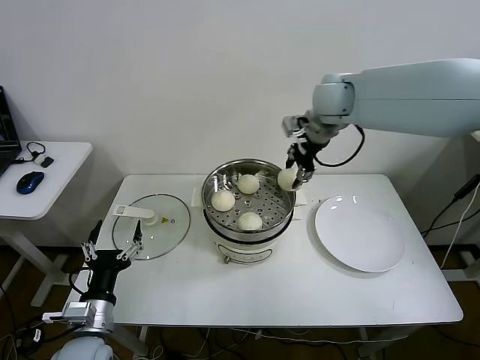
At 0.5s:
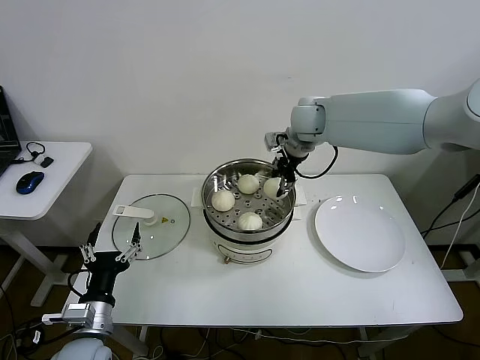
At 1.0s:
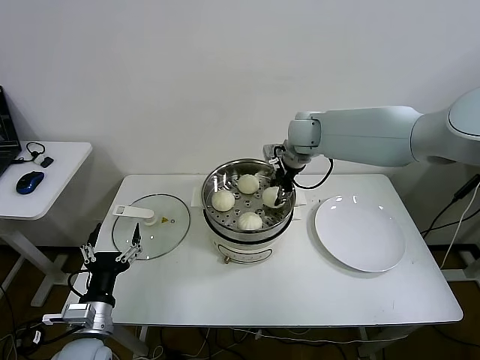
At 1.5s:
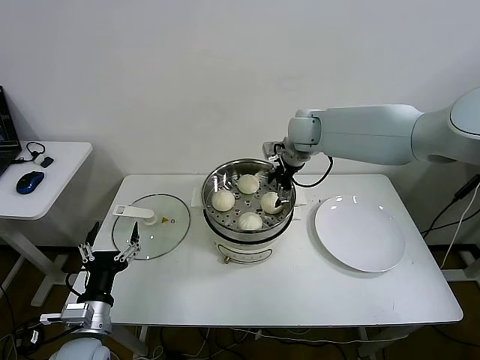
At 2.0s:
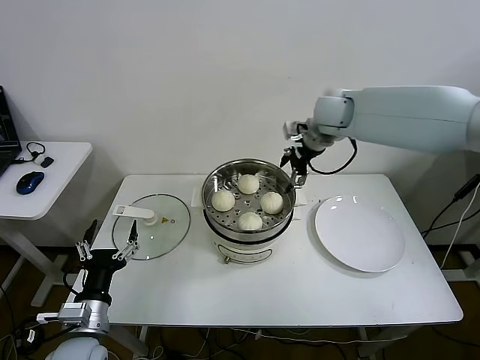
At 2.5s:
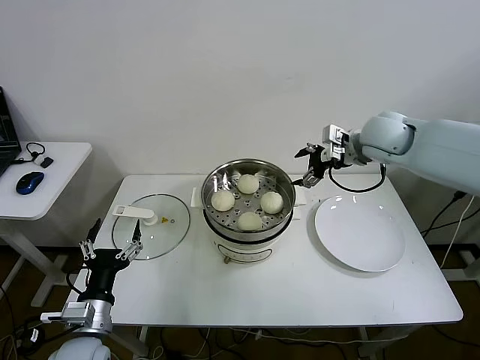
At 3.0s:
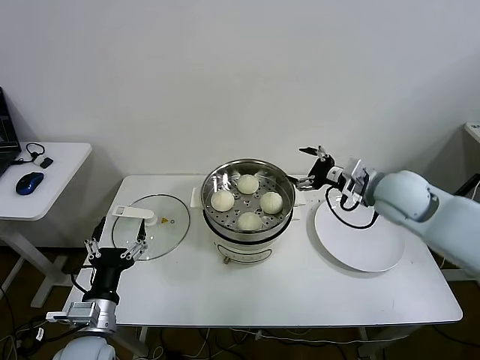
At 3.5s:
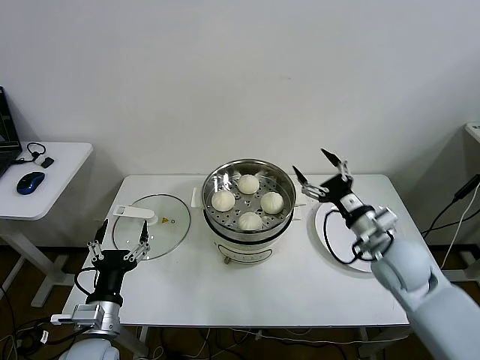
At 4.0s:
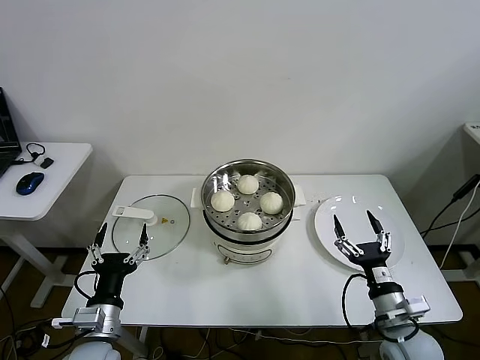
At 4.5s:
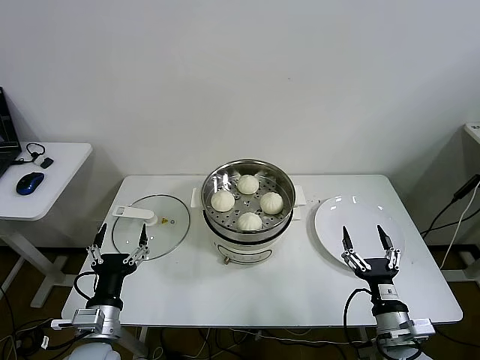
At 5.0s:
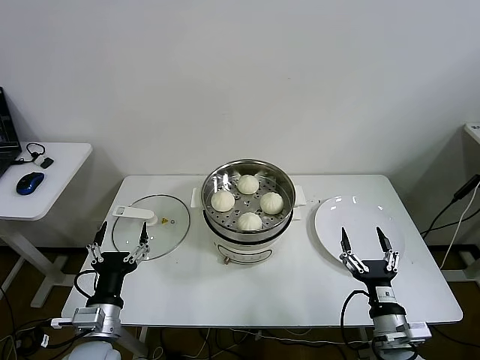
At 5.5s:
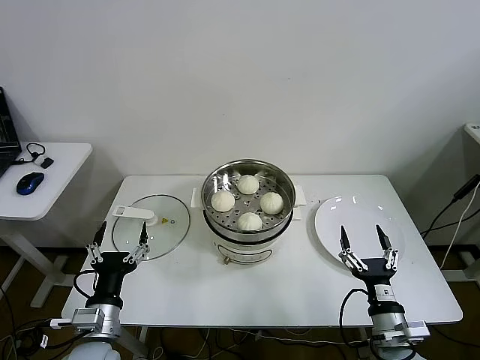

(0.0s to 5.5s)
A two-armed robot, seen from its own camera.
0.0s - 2.0s: The right gripper opens.
2.0s - 3.5s: The right gripper is displaced backward and downward by some 30 cm.
3.5s - 5.5s: The right gripper is displaced backward and downward by some 20 cm.

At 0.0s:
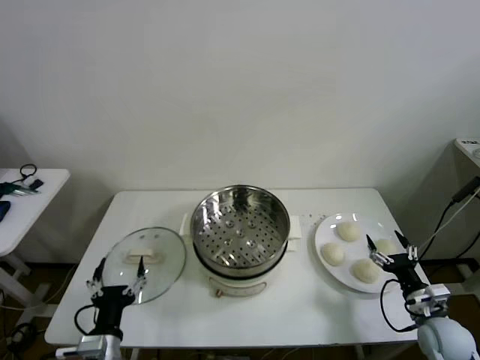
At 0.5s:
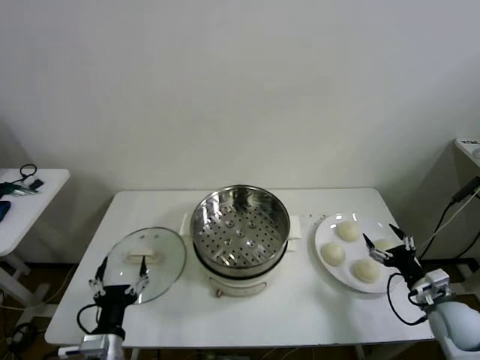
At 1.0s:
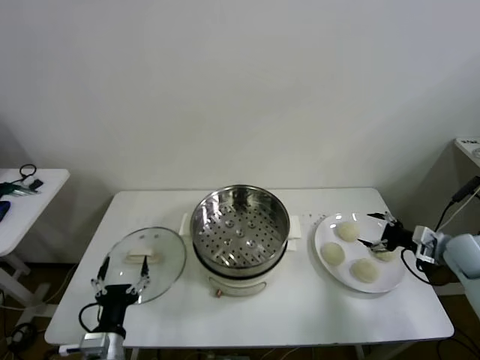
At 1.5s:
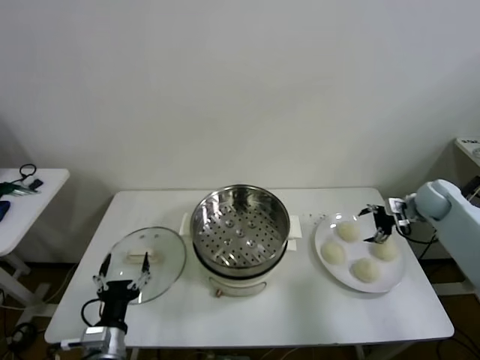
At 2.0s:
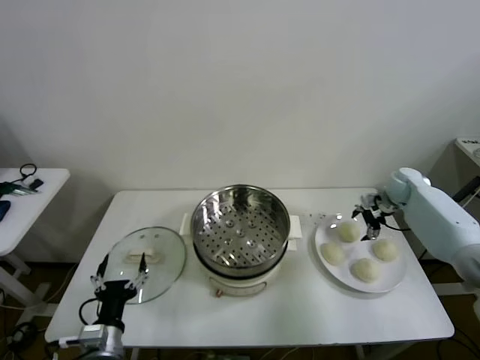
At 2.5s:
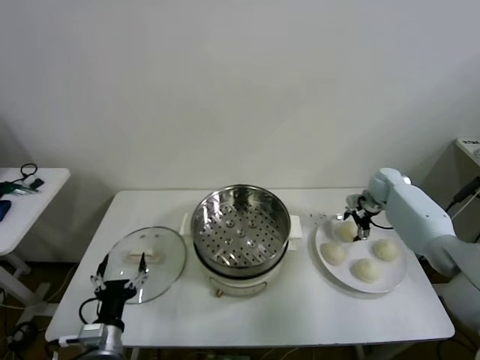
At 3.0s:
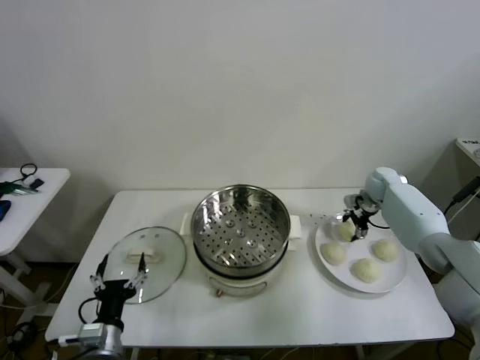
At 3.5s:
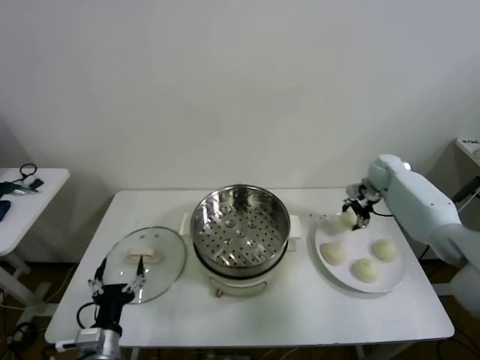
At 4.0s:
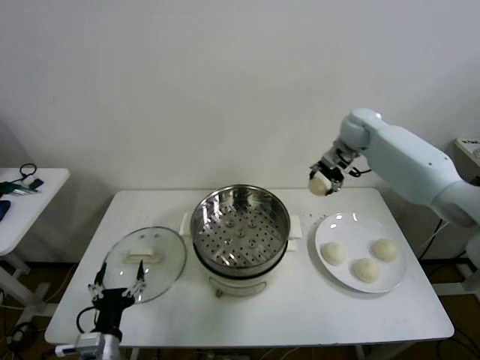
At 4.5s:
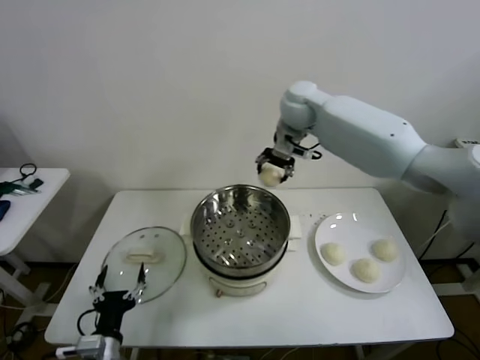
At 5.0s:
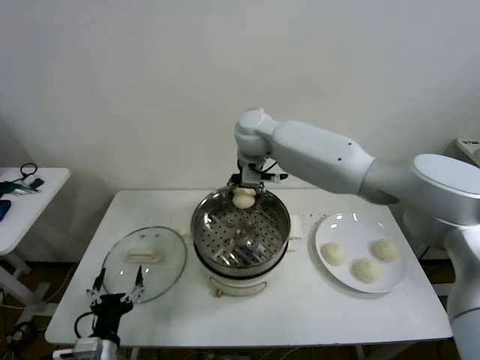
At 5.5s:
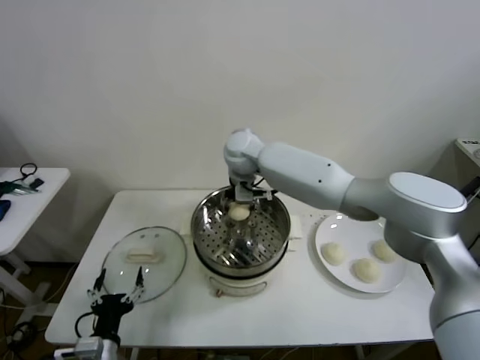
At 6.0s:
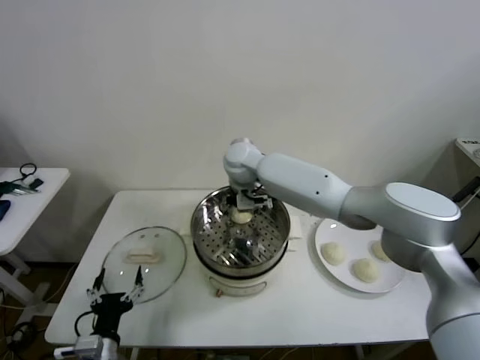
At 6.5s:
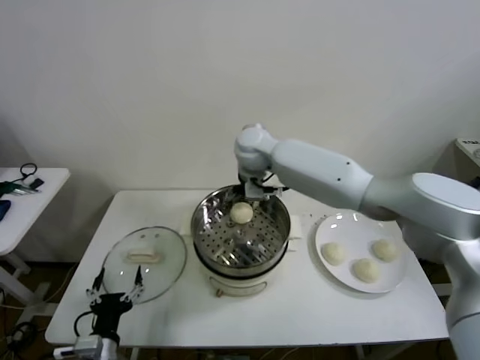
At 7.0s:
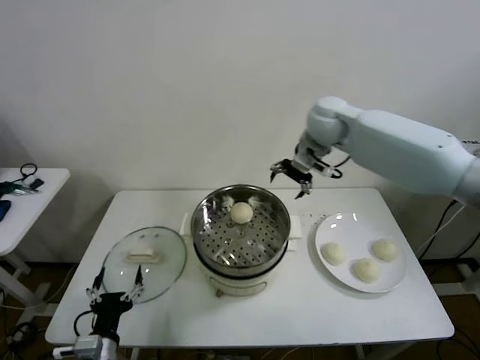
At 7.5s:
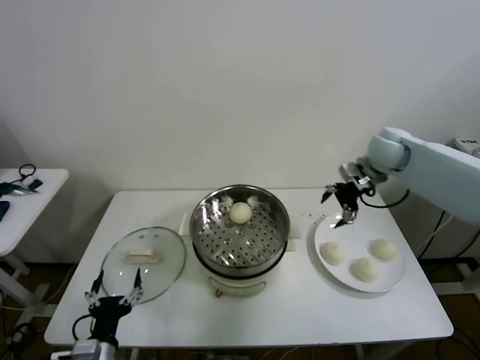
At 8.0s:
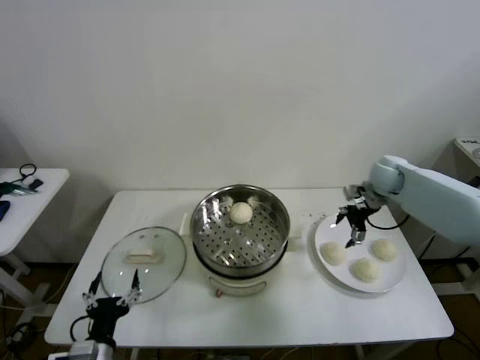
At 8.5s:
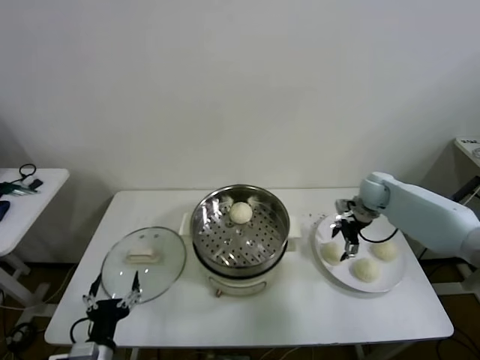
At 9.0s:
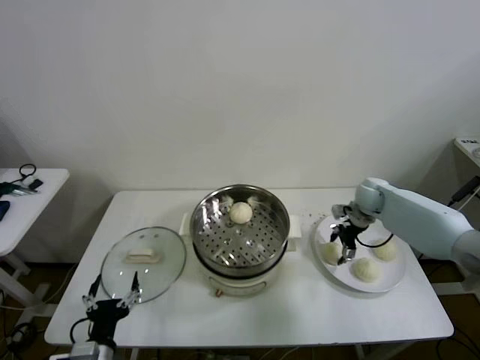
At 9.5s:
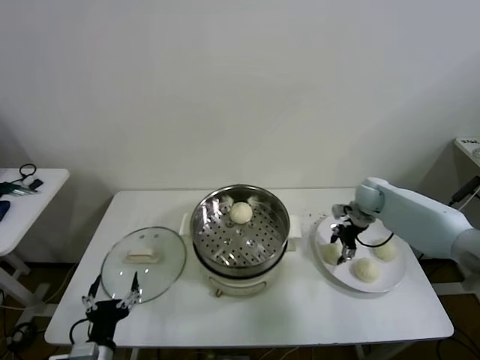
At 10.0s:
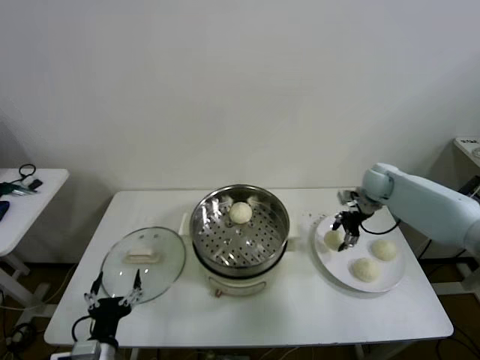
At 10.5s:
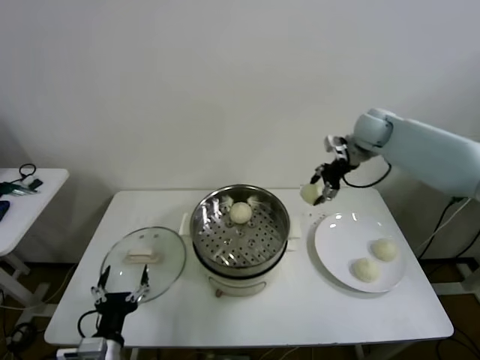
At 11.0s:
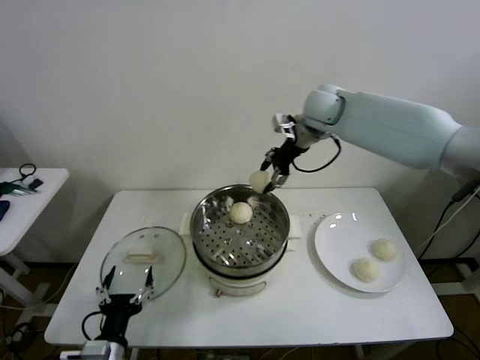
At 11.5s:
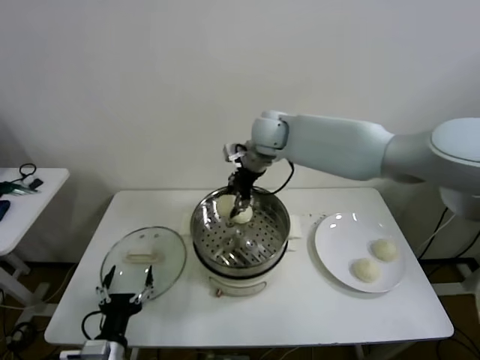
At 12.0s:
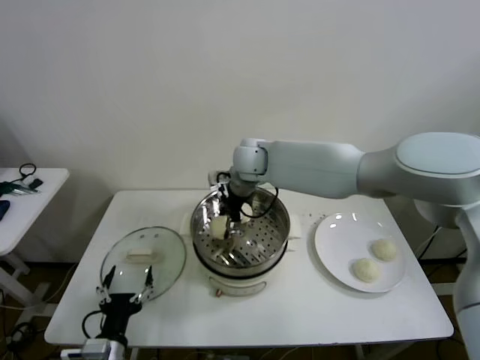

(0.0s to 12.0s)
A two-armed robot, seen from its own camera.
Step, 0.0s - 3.0s: Grasp the baozi in the plate with right gripper.
Step, 3.5s - 5.5s: Place the baozi on the steamer with right gripper.
Step, 6.5s - 9.0s: Grasp the baozi in the plate with right gripper.
2.0s - 4.0s: The right gripper goes about 25 cm upward and to the left, and closes up.
4.0s - 6.0s: The right gripper shifts about 25 cm to the left, and opens its fingers.
6.0s - 8.0s: The right gripper heads to the right, covering about 35 cm.
8.0s - 10.0s: The right gripper closes.
10.0s - 12.0s: The right gripper is displaced to the left by roughly 35 cm.

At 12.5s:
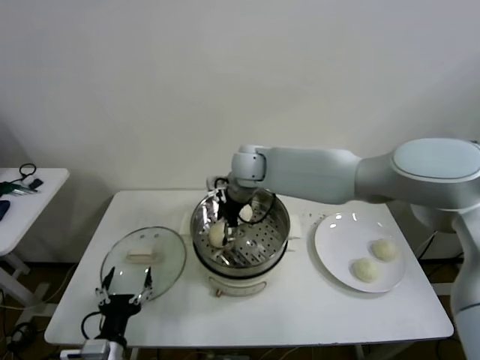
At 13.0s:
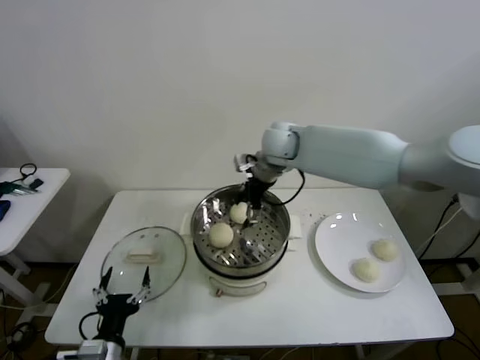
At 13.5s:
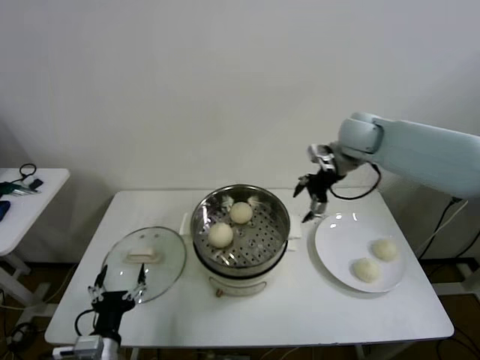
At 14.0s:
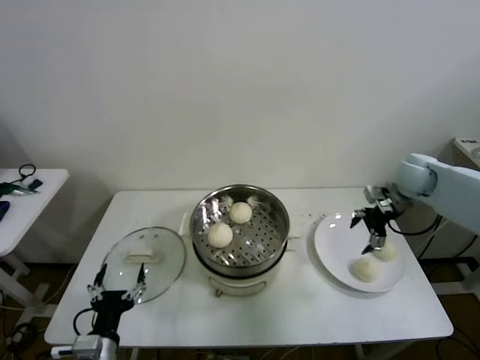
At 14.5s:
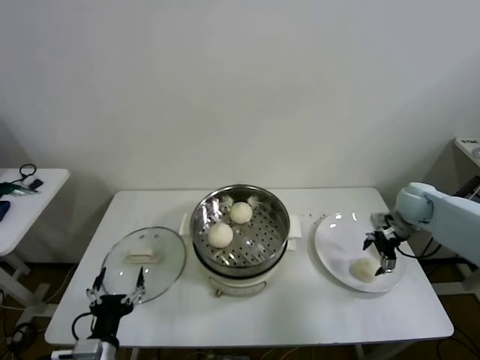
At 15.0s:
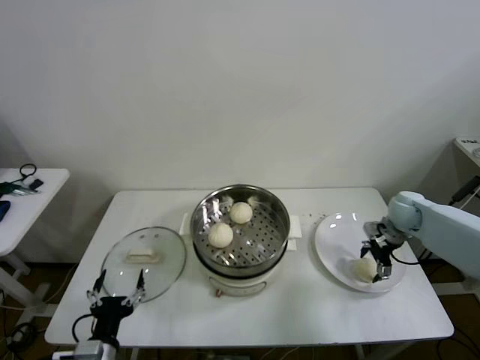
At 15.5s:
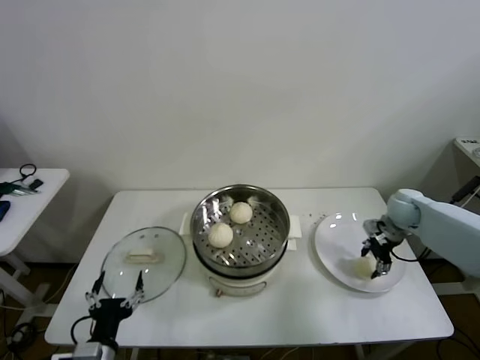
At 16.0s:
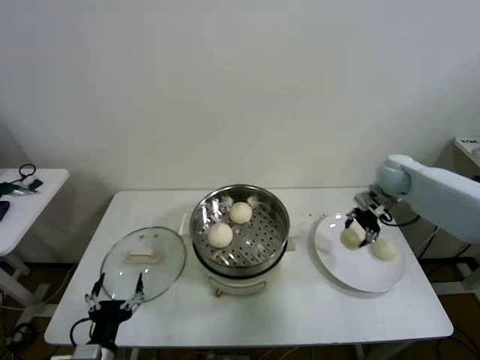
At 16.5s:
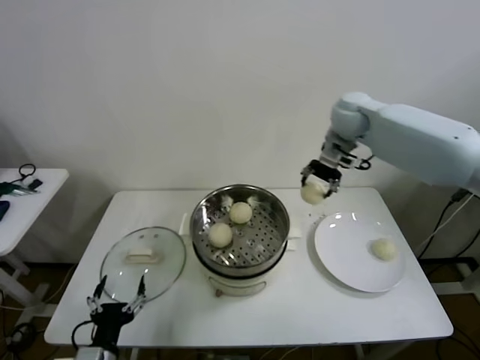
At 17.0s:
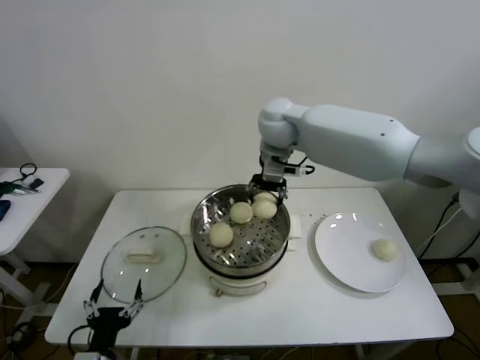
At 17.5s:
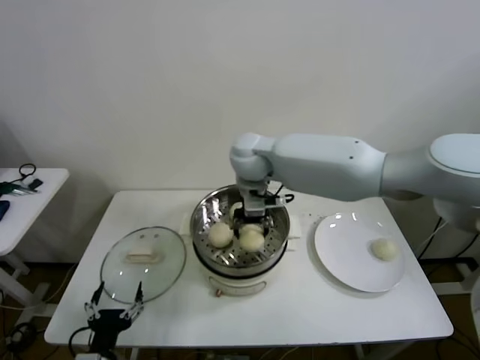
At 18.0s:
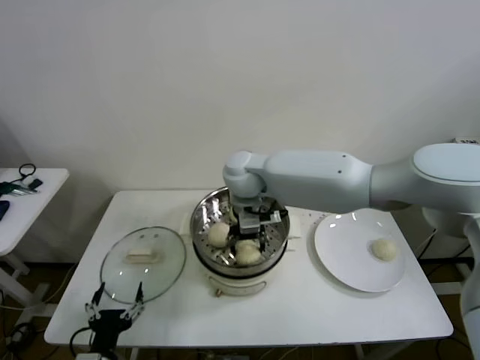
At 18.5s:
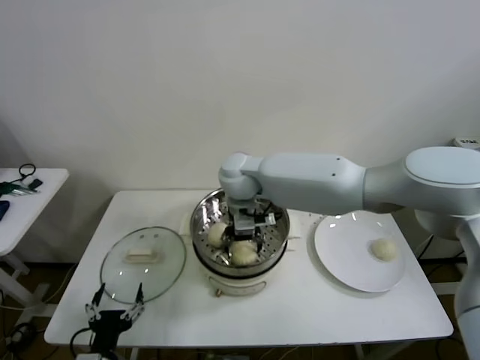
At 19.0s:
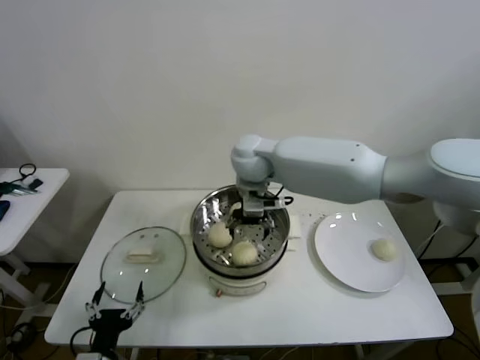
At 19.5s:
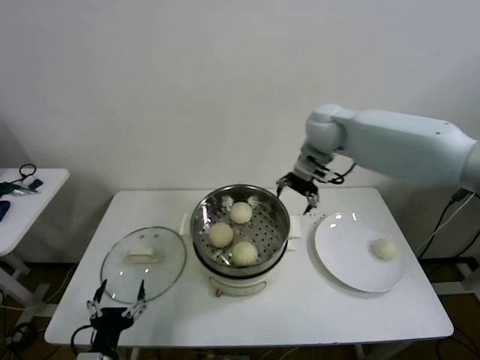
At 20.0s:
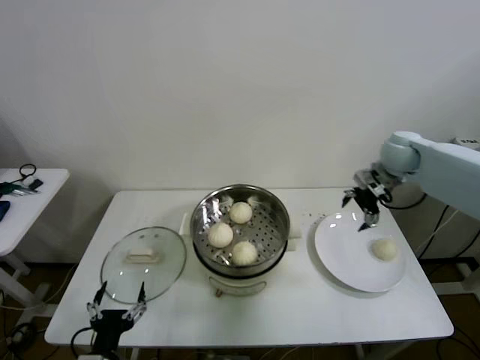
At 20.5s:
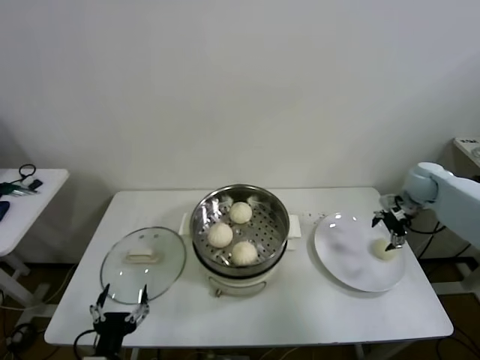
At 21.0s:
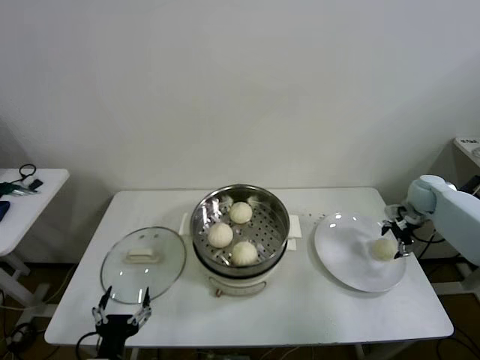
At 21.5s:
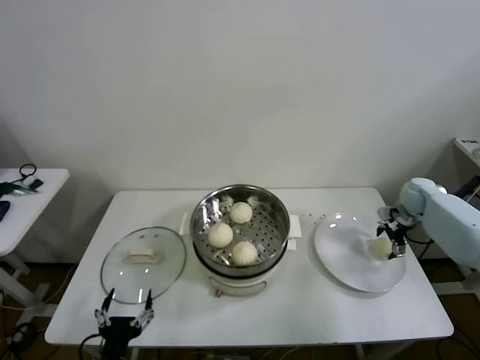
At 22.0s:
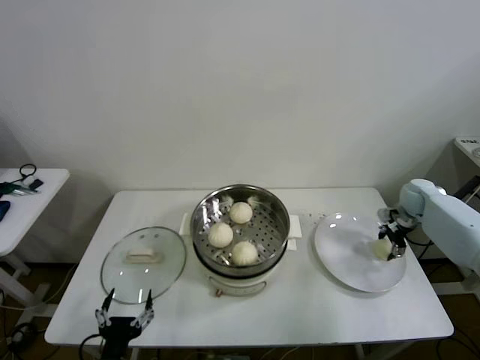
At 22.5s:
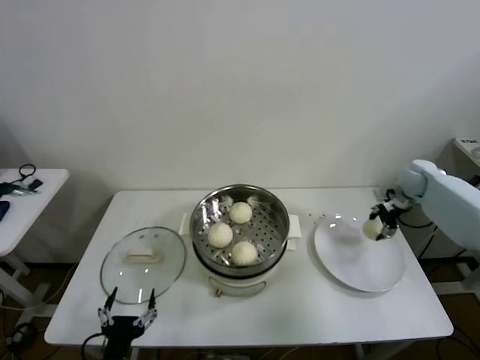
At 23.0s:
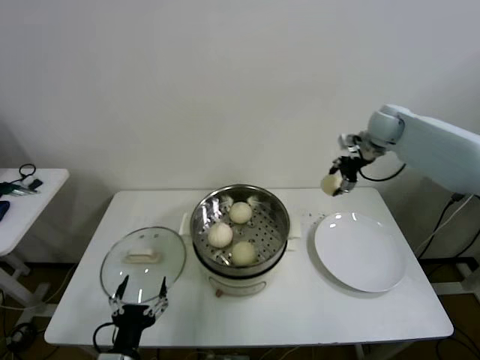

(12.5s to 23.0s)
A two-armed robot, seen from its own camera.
Step, 13.0s - 15.0s: Grasp the baozi in the plate with right gripper.
Step, 15.5s - 18.5s: Place the baozi on the steamer with right gripper.
Step, 19.0s - 21.5s: Grasp the baozi in the plate with right gripper.
12.5s - 14.5s: The right gripper moves to the right, approximately 40 cm.
14.5s - 16.5s: The right gripper moves upward, to the left and forward, about 30 cm, and closes.
16.5s - 19.0s: The right gripper heads to the left, covering about 20 cm, and opens up.
19.0s - 21.0s: The right gripper goes roughly 50 cm to the right.
21.0s - 23.0s: The right gripper travels upward and to the left by roughly 25 cm, and closes.
